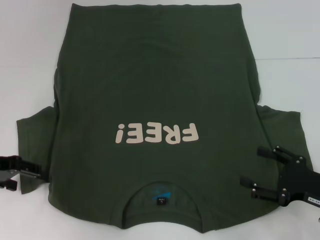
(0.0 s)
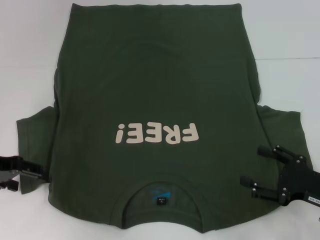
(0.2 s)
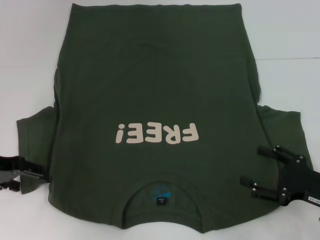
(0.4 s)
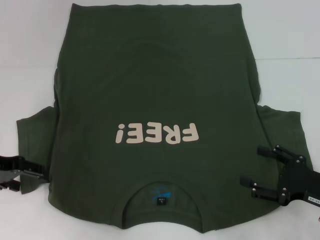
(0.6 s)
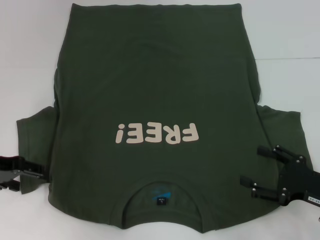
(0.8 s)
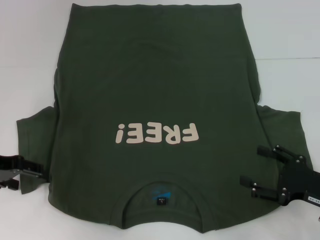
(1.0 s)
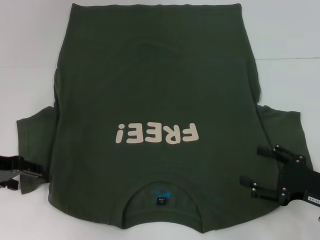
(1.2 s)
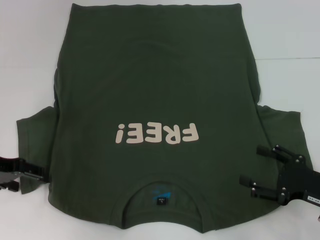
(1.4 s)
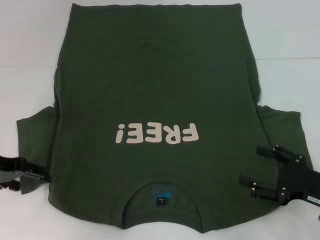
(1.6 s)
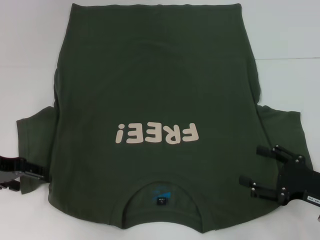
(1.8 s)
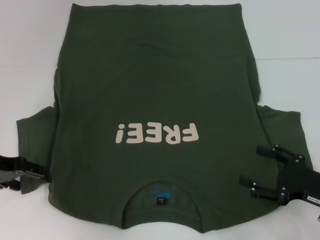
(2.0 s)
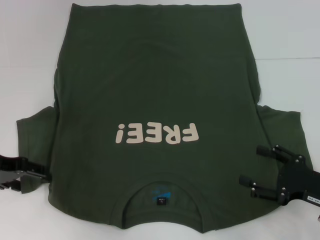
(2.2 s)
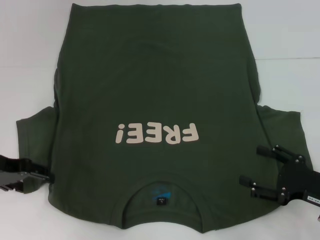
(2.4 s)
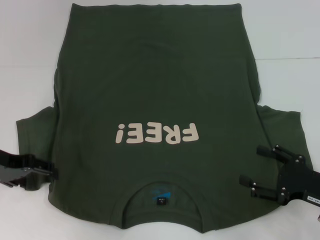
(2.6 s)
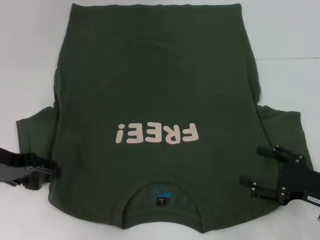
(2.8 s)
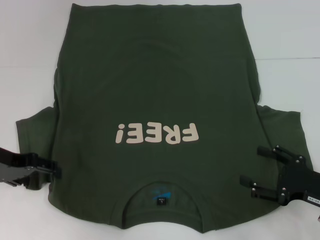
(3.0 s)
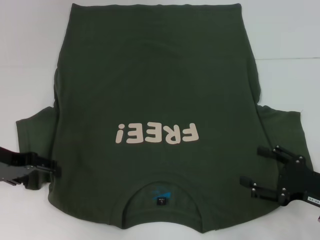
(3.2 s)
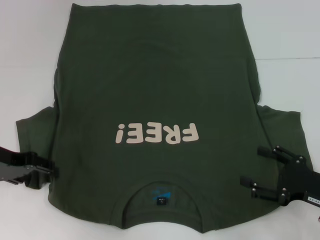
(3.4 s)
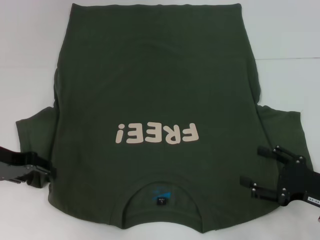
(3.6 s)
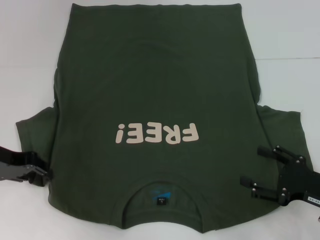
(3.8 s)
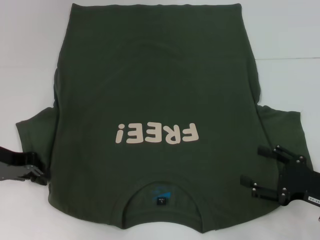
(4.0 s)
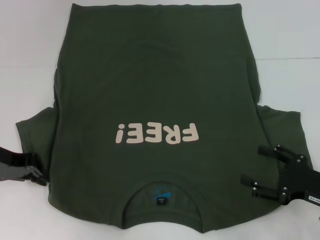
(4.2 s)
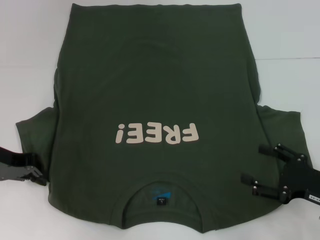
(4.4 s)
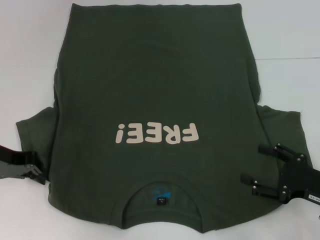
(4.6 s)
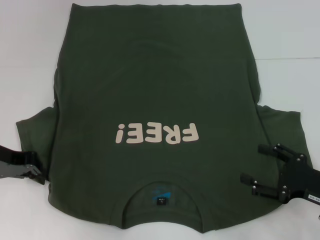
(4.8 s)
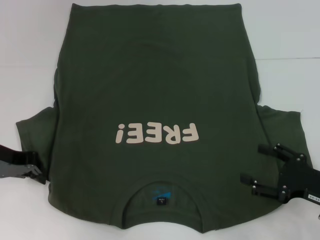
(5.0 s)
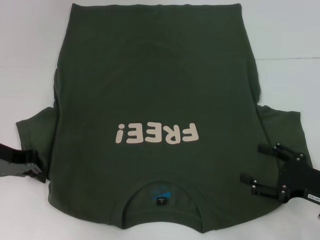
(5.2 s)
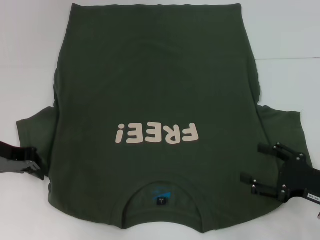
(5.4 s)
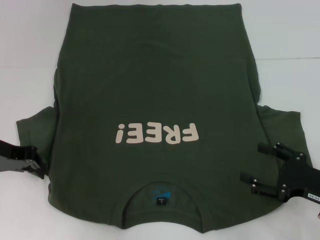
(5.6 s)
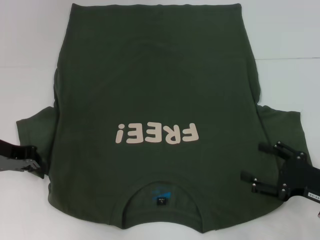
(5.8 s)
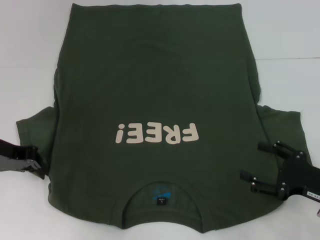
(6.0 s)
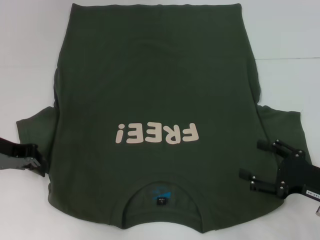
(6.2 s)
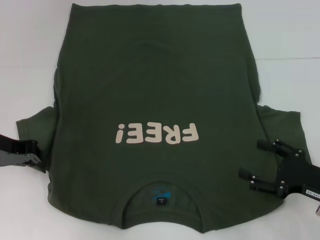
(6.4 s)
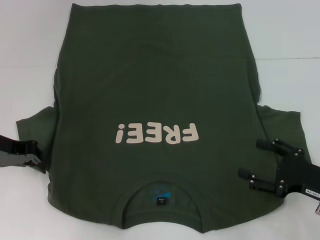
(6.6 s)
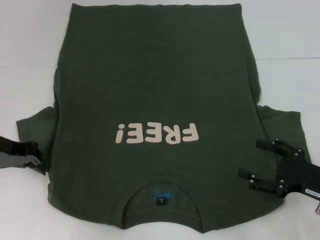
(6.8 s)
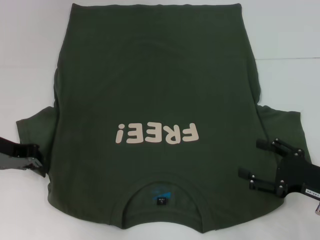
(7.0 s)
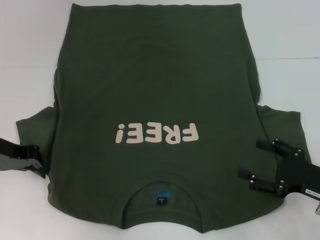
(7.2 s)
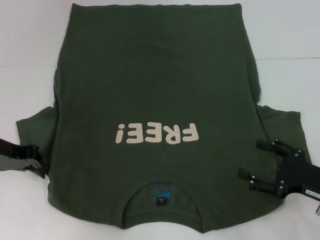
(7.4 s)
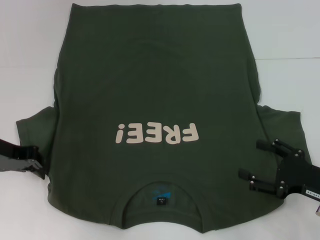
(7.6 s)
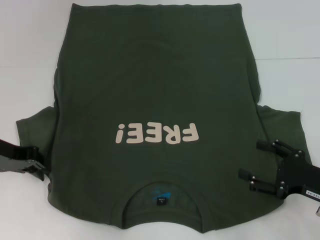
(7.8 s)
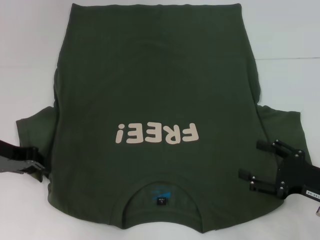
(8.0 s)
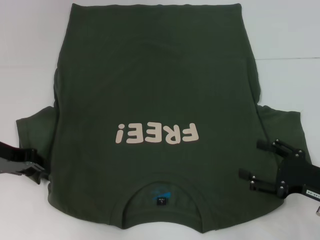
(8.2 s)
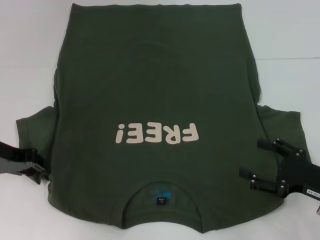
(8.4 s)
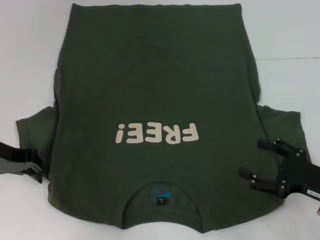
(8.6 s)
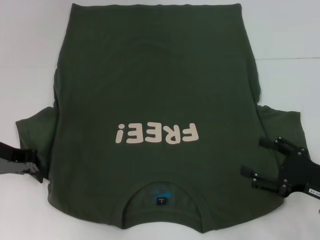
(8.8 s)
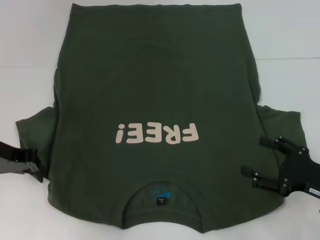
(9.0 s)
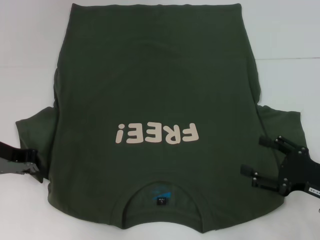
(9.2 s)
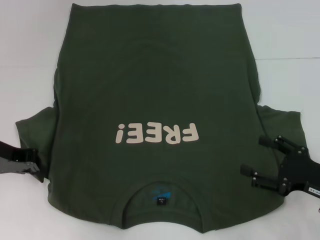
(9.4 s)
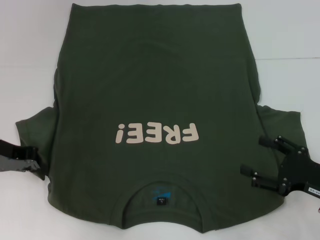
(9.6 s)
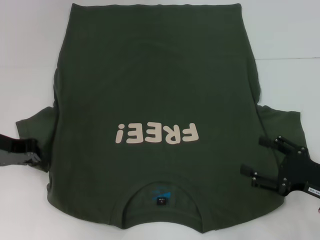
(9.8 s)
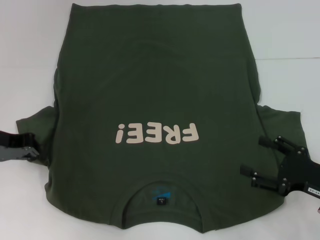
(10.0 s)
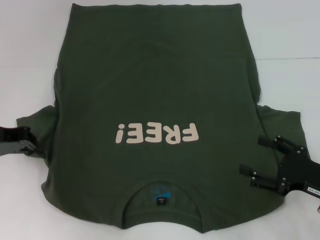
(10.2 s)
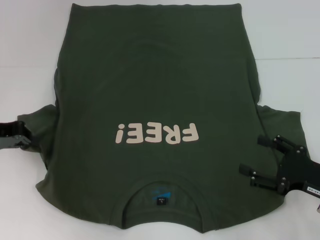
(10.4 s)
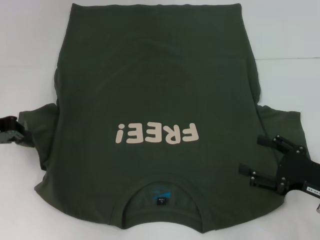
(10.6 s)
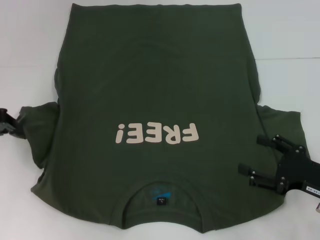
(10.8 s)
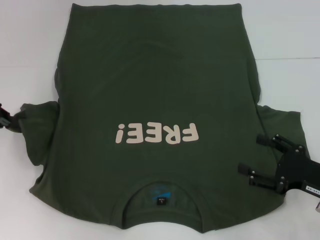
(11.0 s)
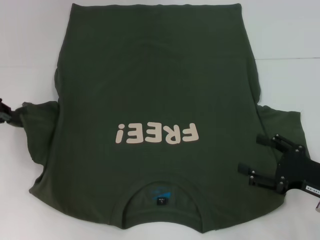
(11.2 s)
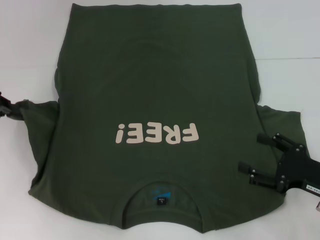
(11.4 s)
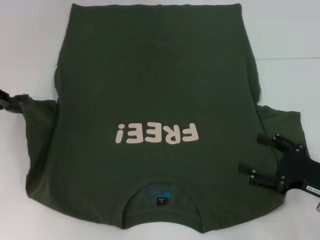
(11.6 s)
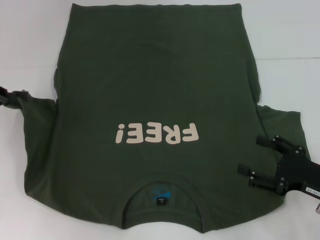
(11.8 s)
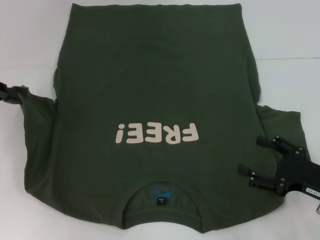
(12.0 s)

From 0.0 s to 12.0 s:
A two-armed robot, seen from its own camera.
From 0.0 s to 1.6 s: The two grippers keep their place.
From 1.6 s to 3.0 s: Both grippers stay put.
From 3.0 s to 4.4 s: The left gripper closes.
From 4.4 s to 6.0 s: Neither gripper changes place.
From 6.0 s to 9.0 s: Neither gripper changes place.
From 9.0 s to 10.4 s: The grippers stay close to where they were, moving slightly.
From 10.4 s to 12.0 s: The grippers stay close to where they were, moving slightly.

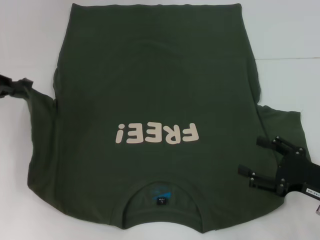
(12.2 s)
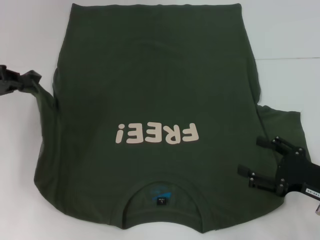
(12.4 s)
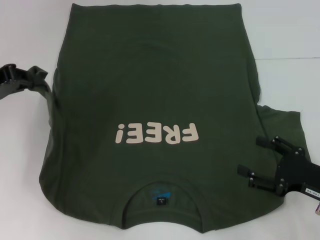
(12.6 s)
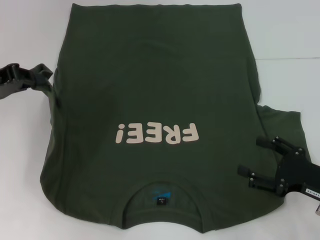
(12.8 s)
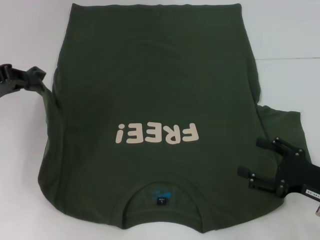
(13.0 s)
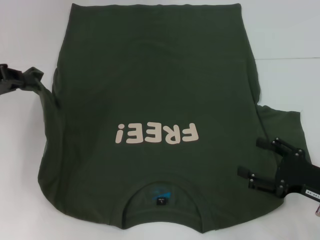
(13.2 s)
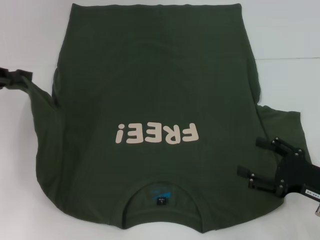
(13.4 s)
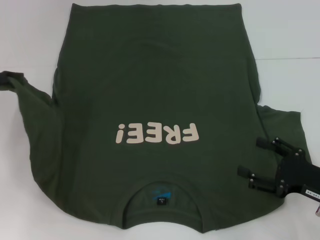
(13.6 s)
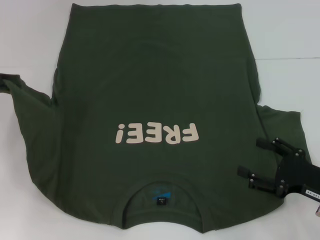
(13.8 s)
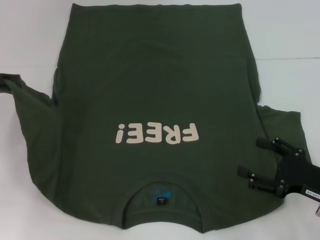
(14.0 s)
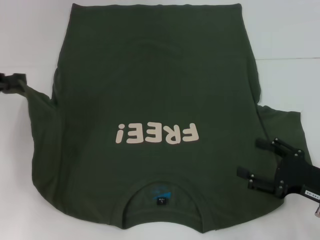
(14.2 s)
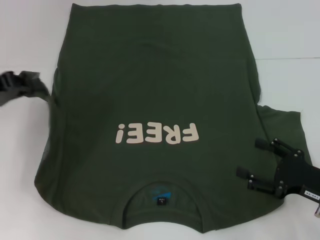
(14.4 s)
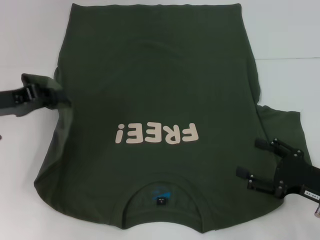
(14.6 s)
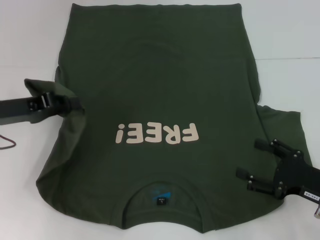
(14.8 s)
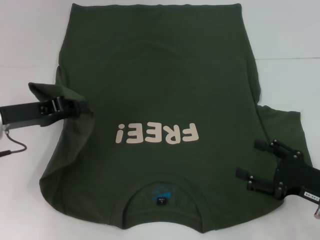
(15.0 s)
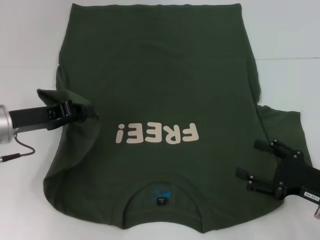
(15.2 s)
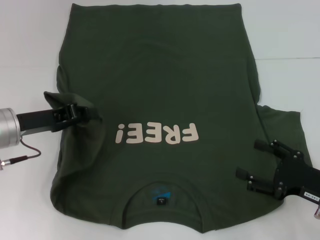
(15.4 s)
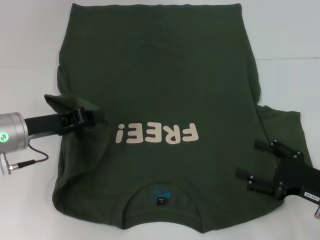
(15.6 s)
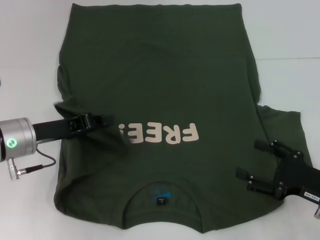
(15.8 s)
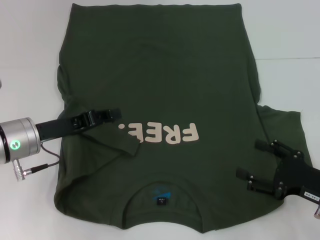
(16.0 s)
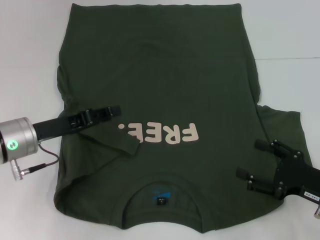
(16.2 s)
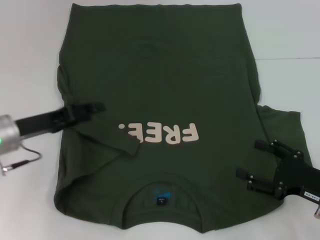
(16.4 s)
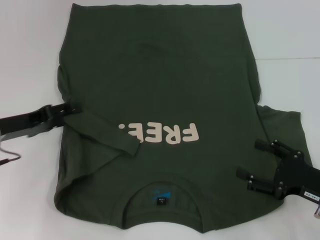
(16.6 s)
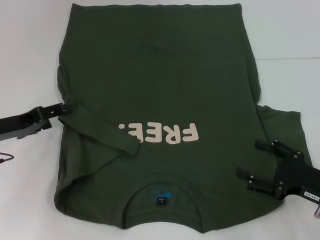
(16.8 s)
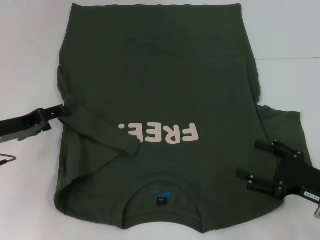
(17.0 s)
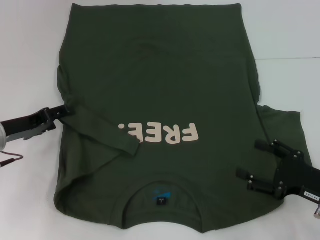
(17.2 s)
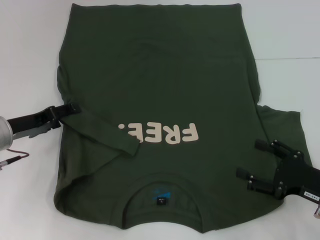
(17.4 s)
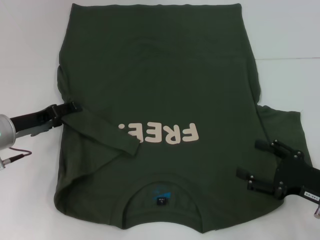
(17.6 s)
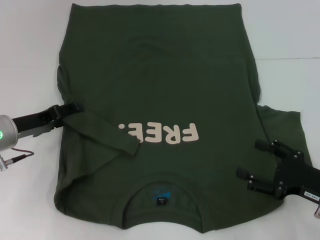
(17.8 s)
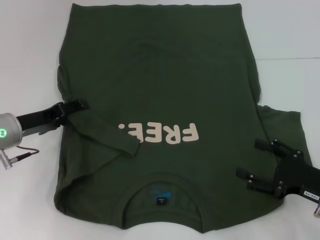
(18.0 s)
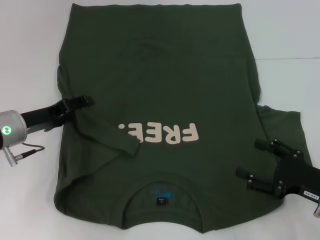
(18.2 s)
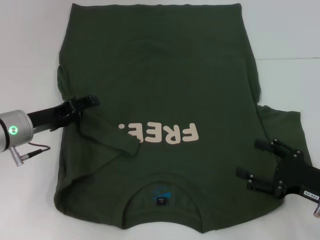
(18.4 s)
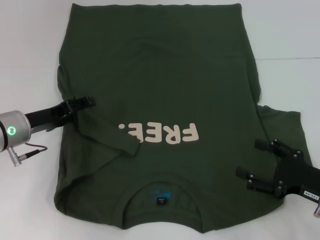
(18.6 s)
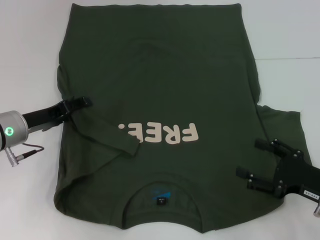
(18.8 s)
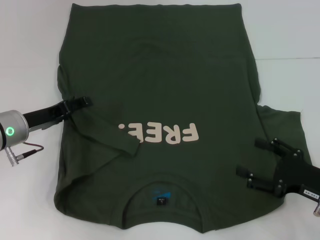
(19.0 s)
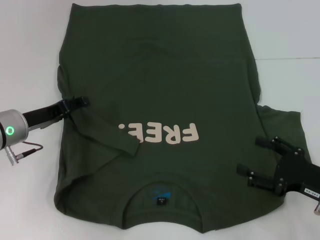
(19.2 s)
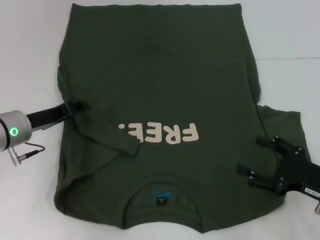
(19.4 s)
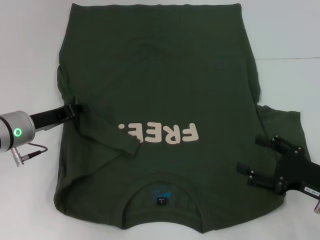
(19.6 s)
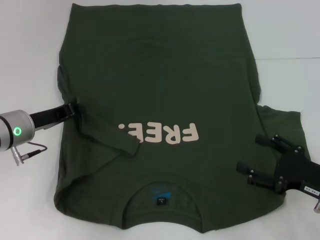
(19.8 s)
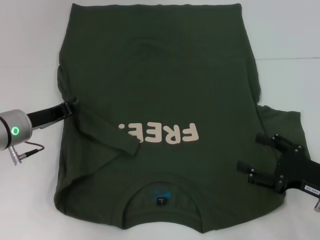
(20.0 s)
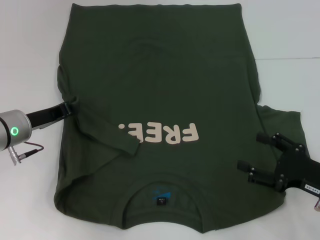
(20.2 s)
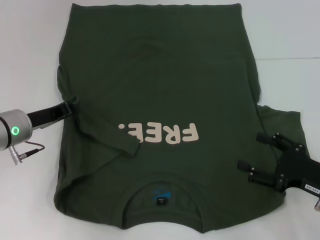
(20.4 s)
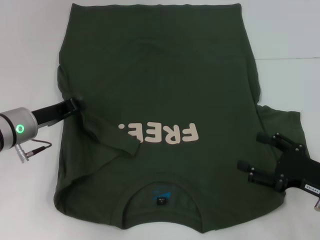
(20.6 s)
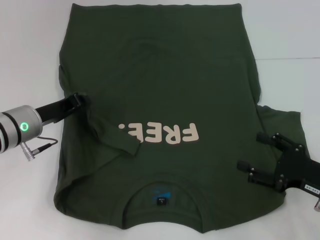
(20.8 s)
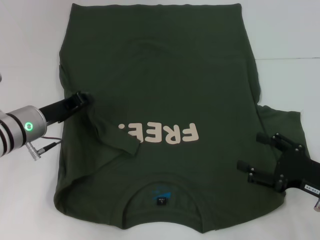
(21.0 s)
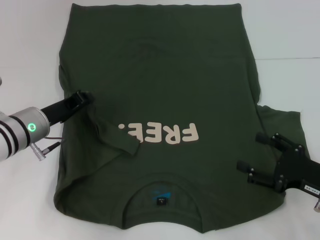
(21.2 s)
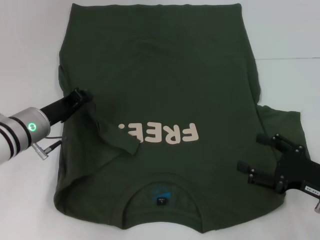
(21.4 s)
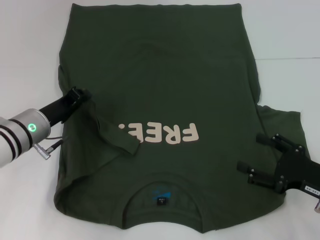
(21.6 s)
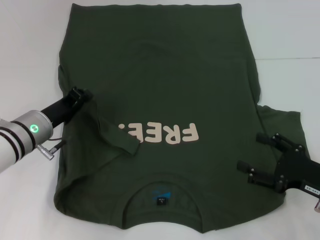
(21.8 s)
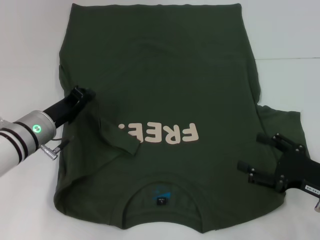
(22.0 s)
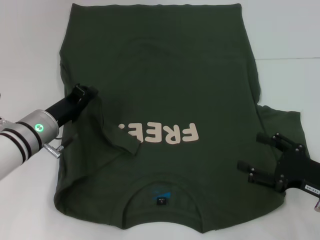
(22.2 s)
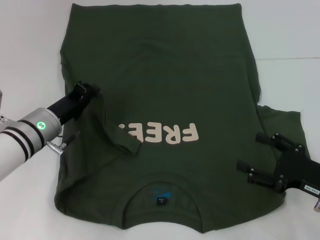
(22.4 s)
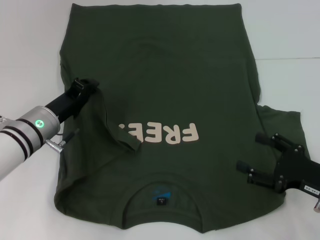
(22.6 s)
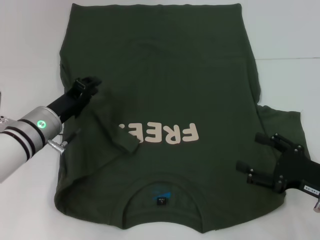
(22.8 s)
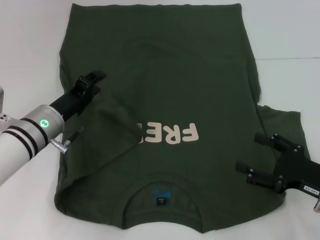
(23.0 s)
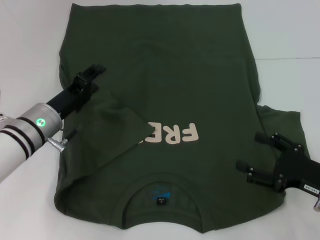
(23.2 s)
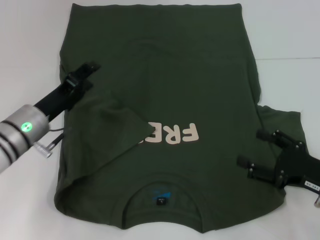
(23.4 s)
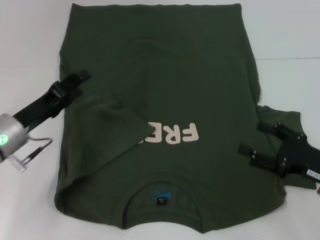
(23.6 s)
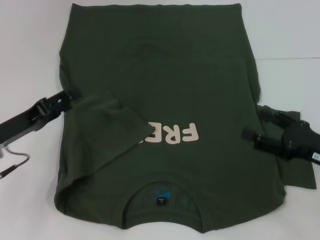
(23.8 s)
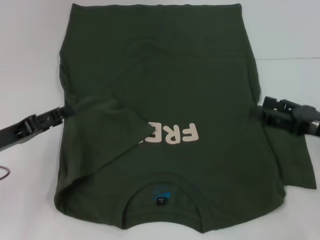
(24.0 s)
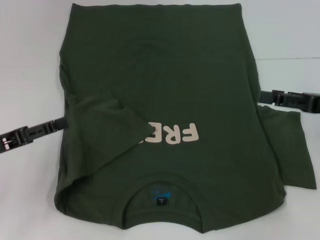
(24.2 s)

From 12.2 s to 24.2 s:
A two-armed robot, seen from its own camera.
Step, from 12.2 s to 18.4 s: Fold the bottom left sleeve with your left hand.
From 12.2 s to 13.8 s: The grippers make only small movements.
From 13.8 s to 15.2 s: The left gripper heads to the right and downward, covering about 10 cm.
From 15.2 s to 16.6 s: The left gripper opens up.
From 16.6 s to 18.2 s: The grippers make only small movements.
From 18.2 s to 19.8 s: The left gripper closes.
From 19.8 s to 21.2 s: The left gripper closes.
From 22.6 s to 24.2 s: The left gripper goes approximately 15 cm to the left and backward, and opens its fingers. The right gripper travels upward and forward by roughly 15 cm.
